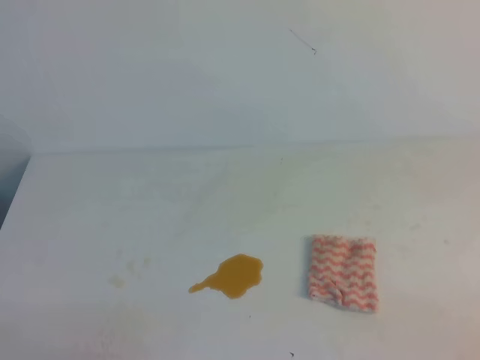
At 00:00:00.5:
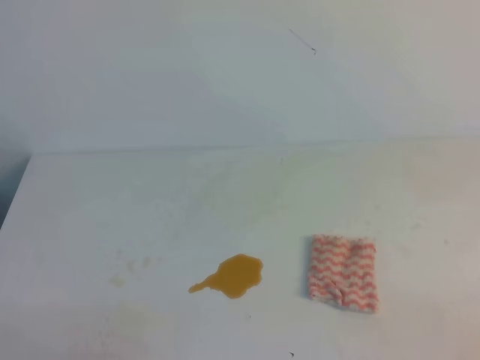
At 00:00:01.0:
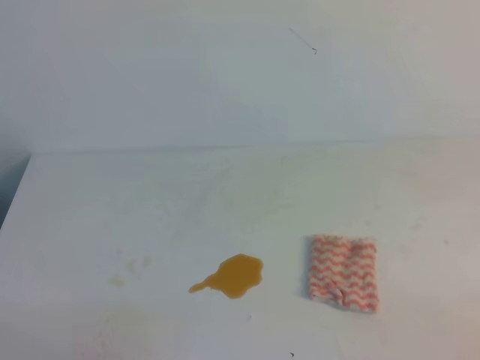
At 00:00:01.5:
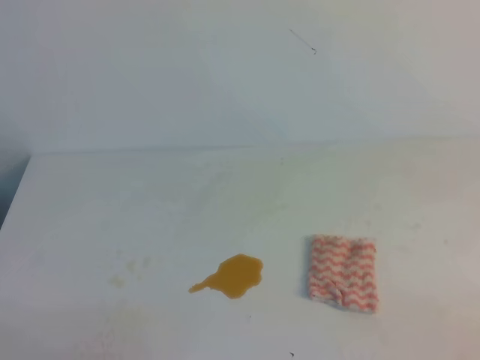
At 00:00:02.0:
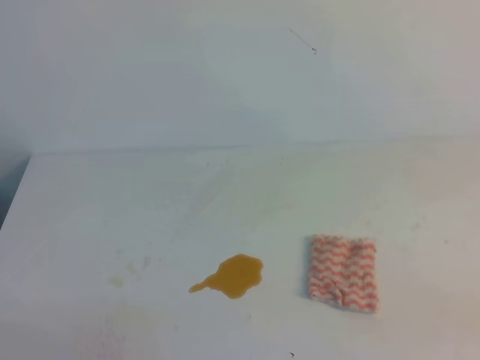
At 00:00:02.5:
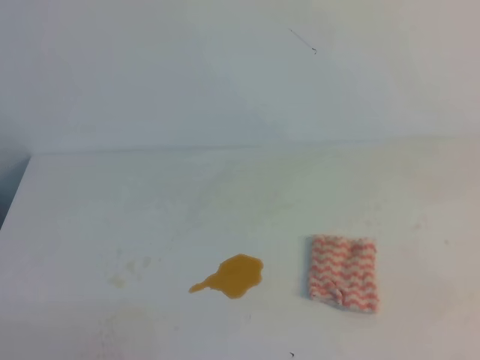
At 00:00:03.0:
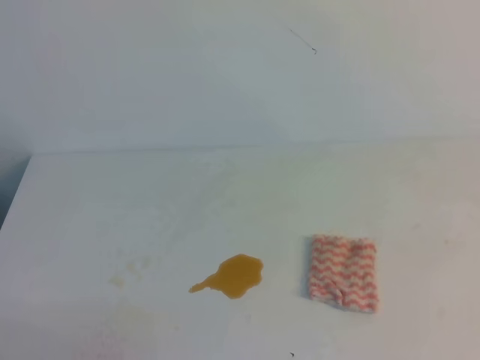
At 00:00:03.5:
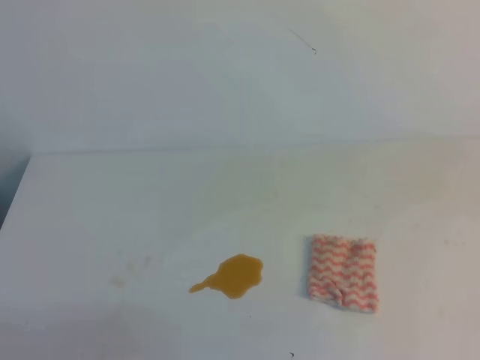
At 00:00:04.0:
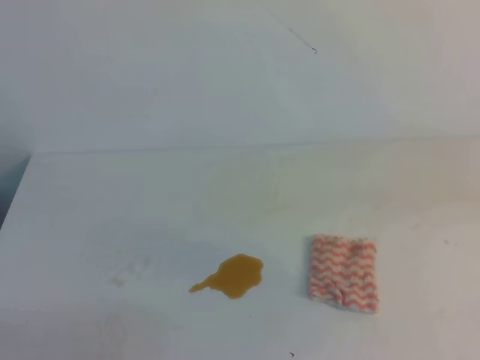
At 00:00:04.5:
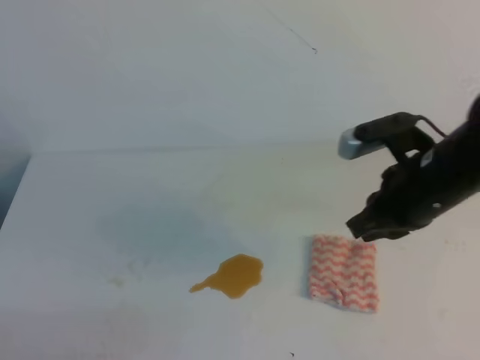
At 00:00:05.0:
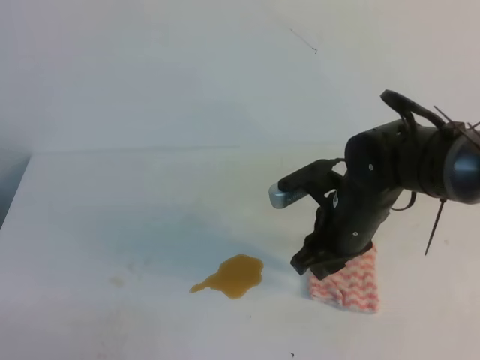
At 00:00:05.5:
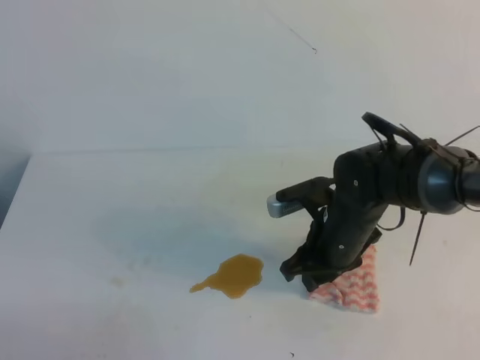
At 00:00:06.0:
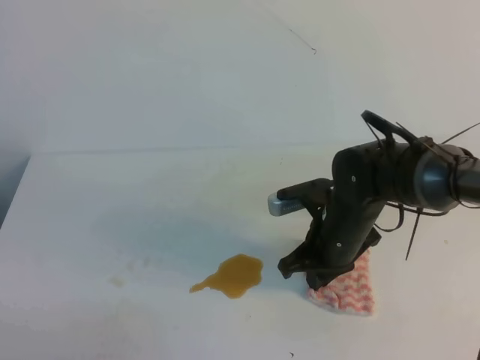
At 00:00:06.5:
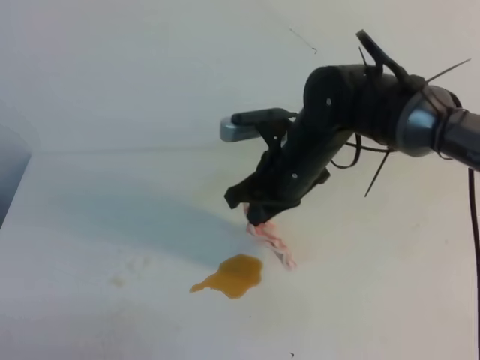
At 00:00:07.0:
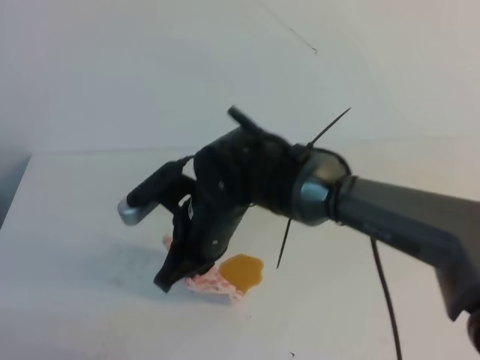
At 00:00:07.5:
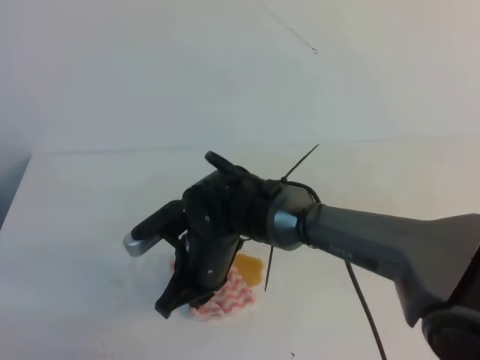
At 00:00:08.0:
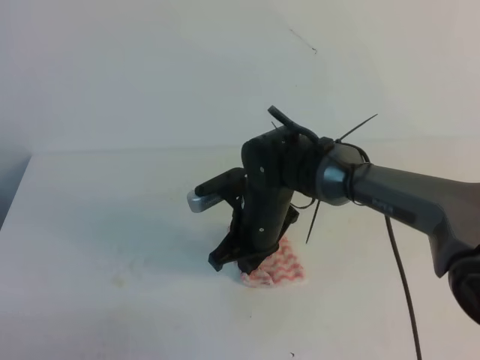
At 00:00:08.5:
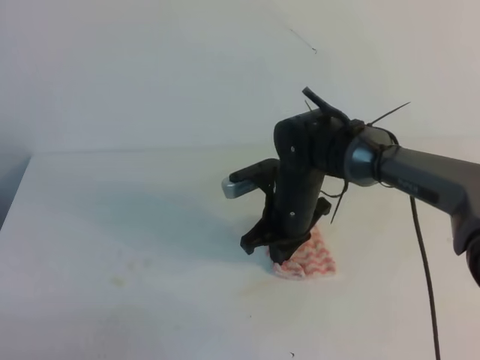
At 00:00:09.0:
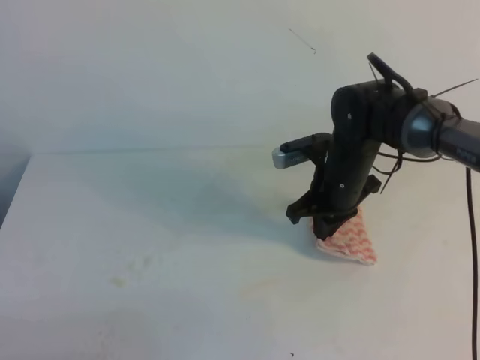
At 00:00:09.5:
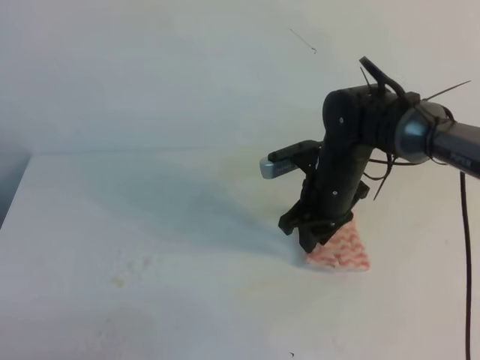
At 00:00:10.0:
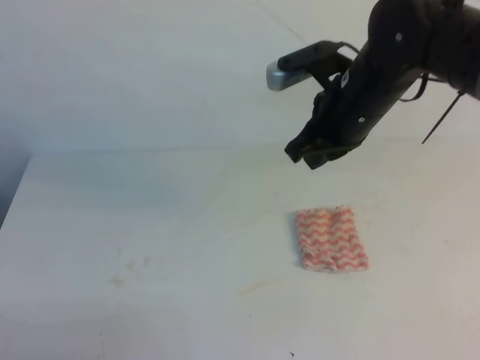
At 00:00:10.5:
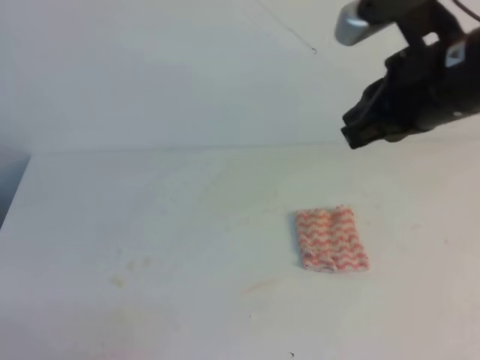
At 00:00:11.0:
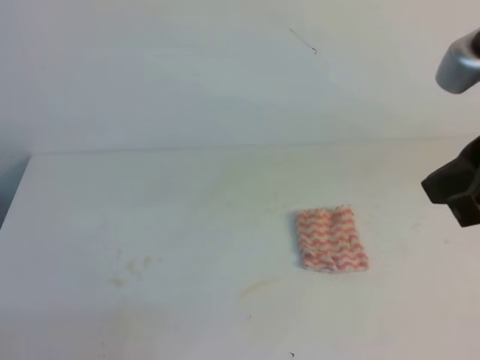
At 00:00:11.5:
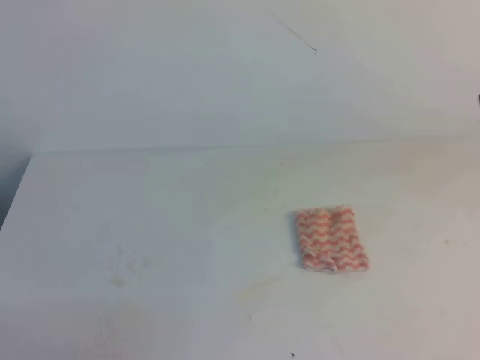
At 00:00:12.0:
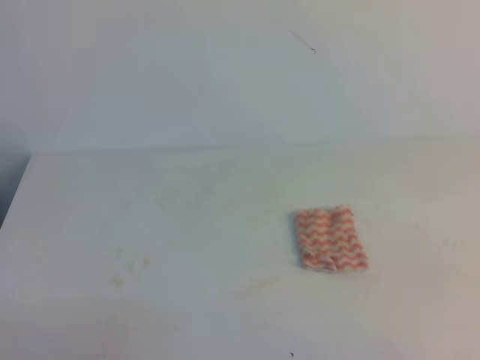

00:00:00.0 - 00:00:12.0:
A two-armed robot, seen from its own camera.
00:00:04.0 - 00:00:06.0: The right gripper shifts roughly 30 cm to the left, downward and forward, and opens and closes again.
00:00:06.0 - 00:00:08.0: The right gripper heads to the left, covering approximately 10 cm.
00:00:08.0 - 00:00:10.0: The right gripper shifts about 20 cm upward and to the right, and opens and closes again.
00:00:10.0 - 00:00:12.0: The right gripper moves backward and to the right, about 35 cm.

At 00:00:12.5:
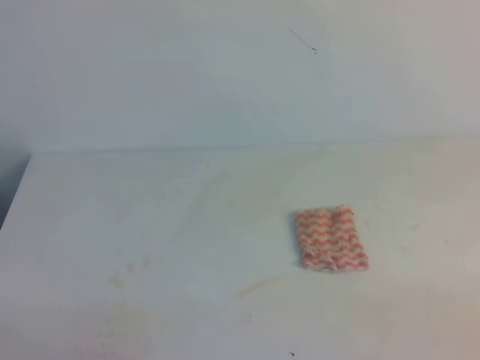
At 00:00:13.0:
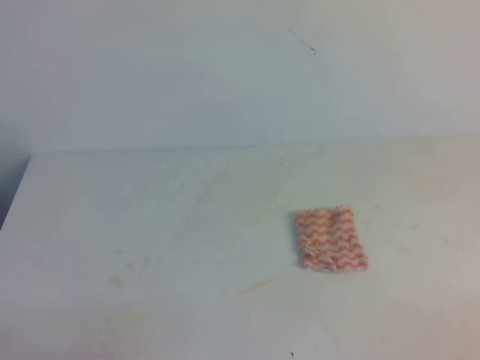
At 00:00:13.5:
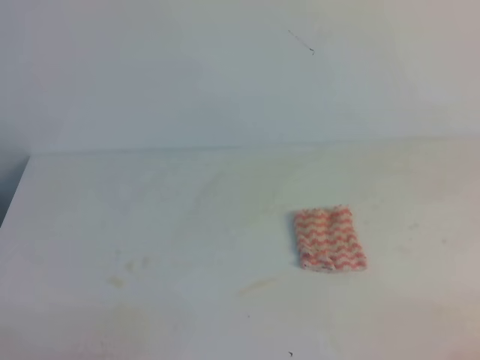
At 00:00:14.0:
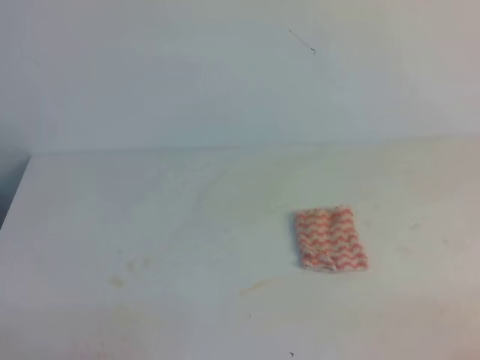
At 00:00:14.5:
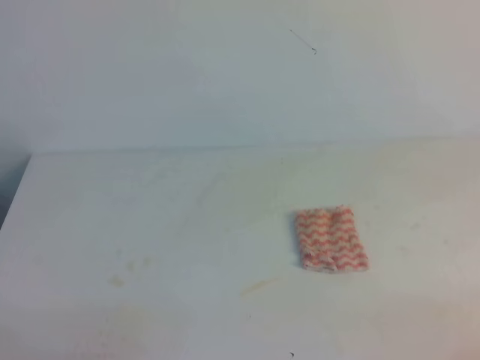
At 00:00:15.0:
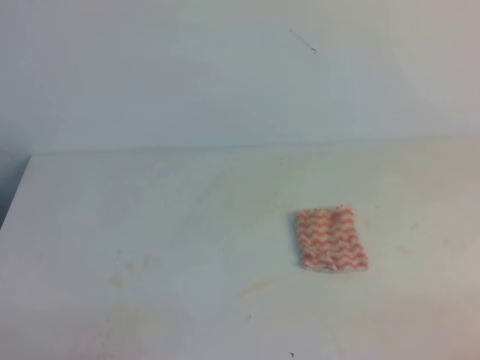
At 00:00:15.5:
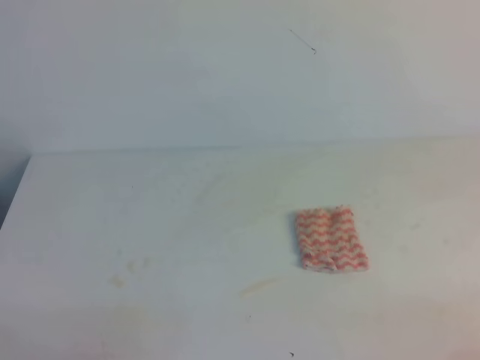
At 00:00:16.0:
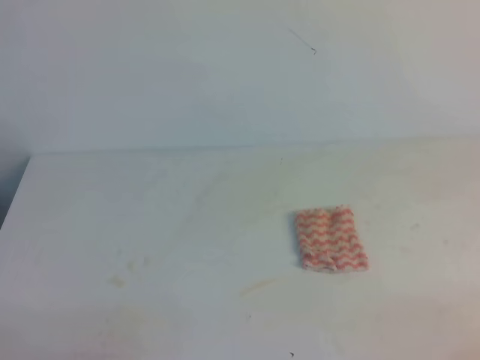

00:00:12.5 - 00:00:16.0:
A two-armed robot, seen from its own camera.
00:00:14.5 - 00:00:16.0: Both grippers stay put.
